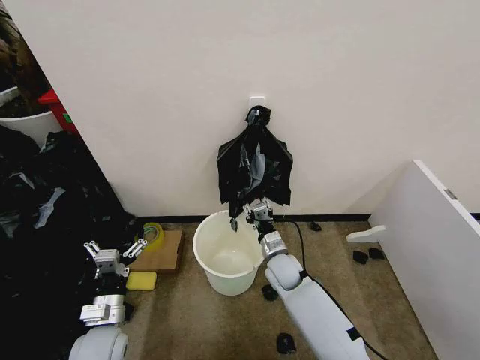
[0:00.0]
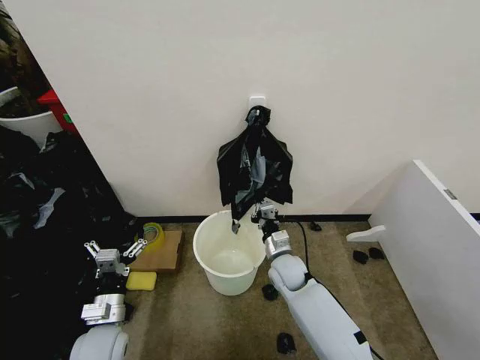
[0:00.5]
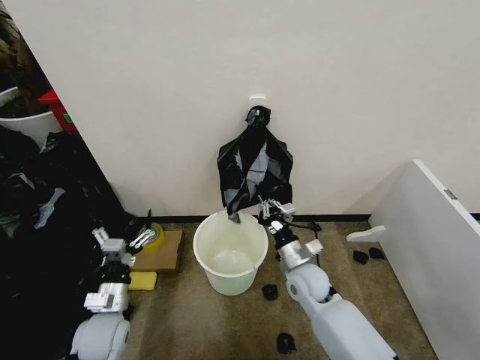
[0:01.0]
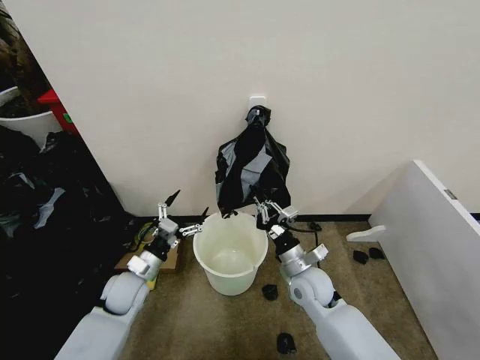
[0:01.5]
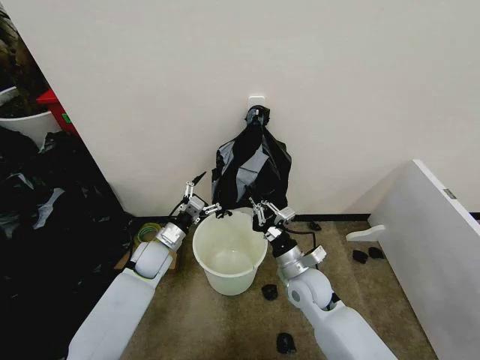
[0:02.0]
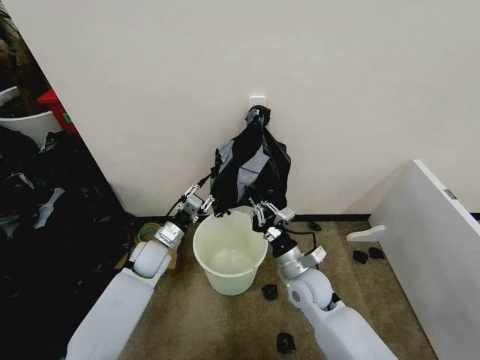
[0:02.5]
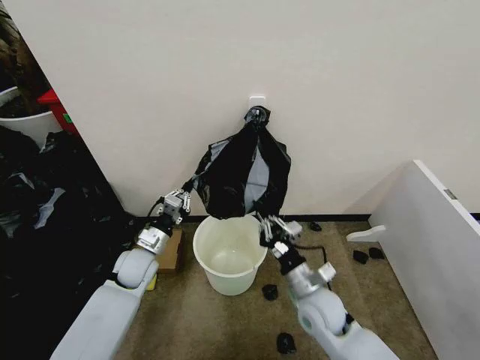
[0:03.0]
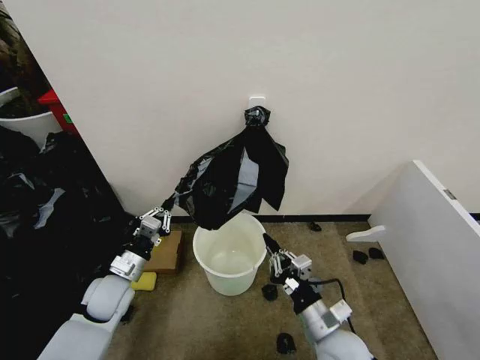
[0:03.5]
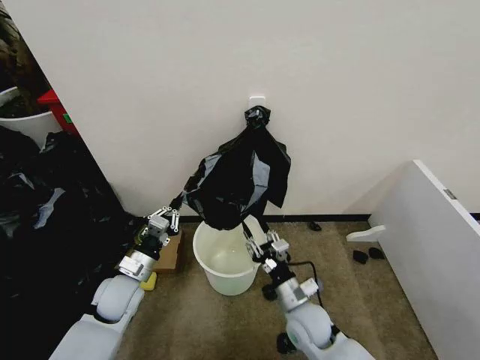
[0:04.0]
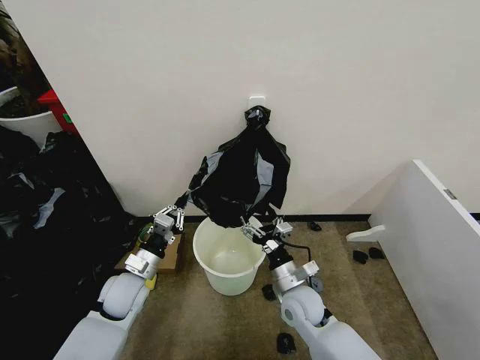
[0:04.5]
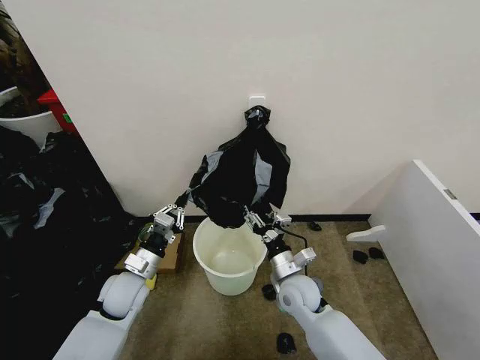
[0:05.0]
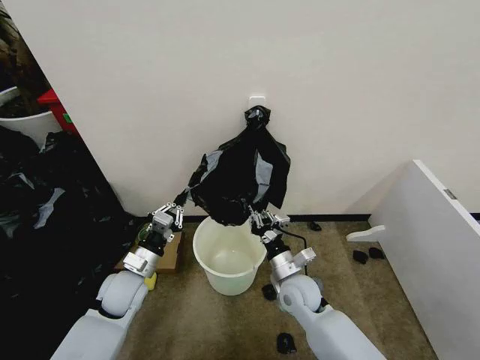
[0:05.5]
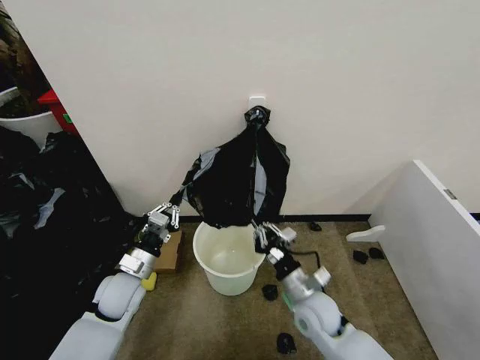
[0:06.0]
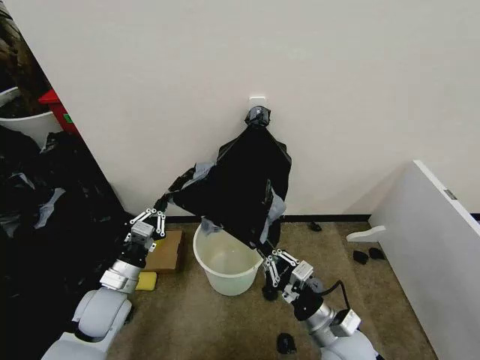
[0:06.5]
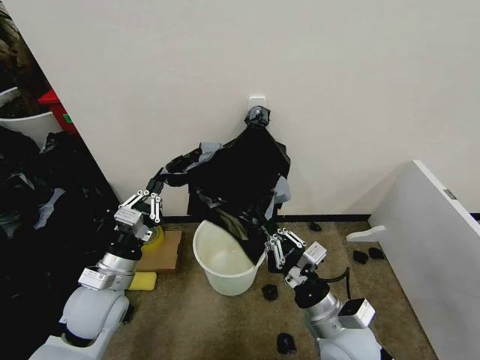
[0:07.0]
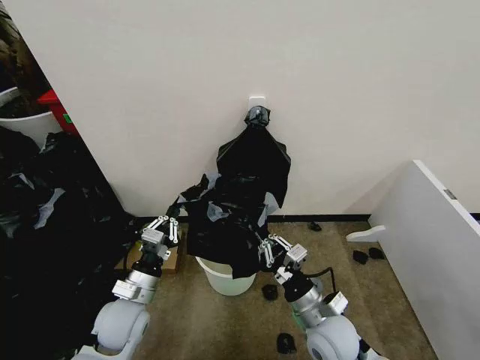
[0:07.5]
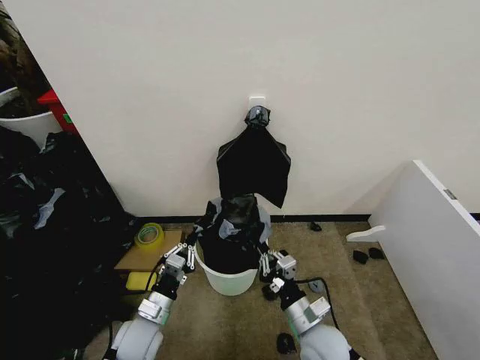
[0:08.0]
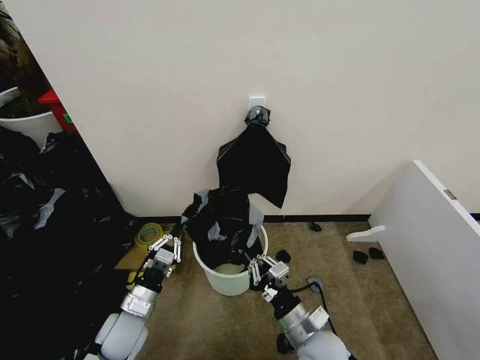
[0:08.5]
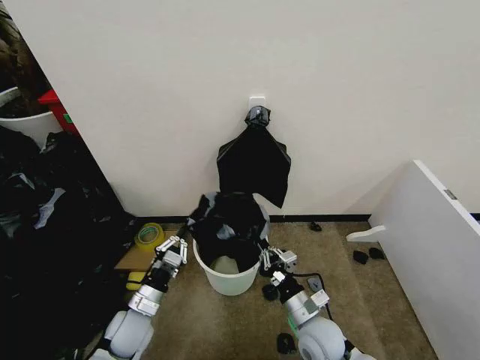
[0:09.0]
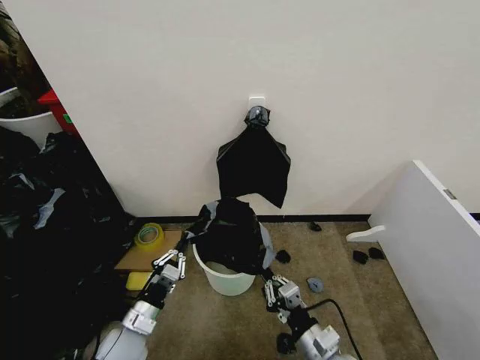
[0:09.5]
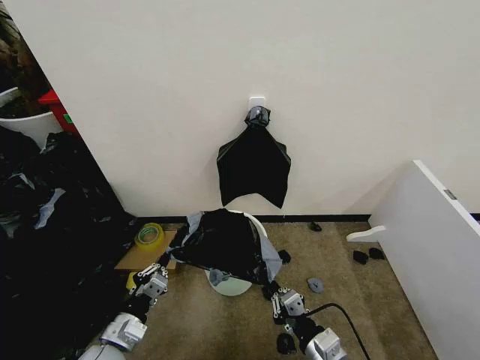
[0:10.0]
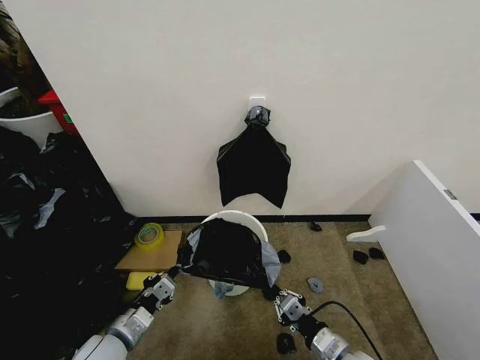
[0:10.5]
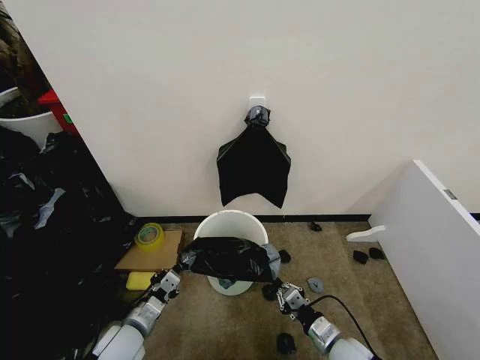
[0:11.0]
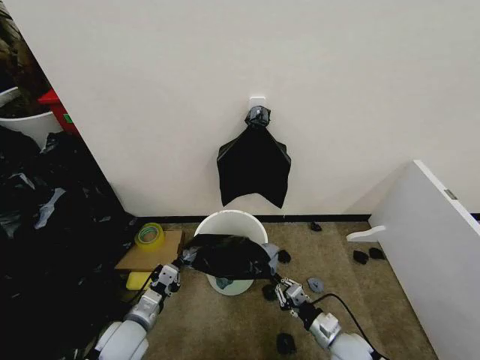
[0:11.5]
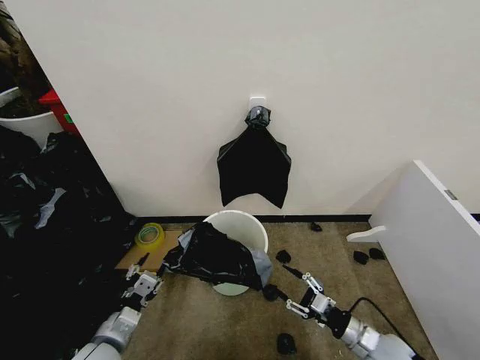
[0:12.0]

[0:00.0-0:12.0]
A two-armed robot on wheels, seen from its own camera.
Task of the whole recording: Place the garbage bag over the trash bin.
0:00.0 to 0:02.0: The left gripper is displaced forward by some 20 cm. Meanwhile the right gripper is displaced backward and upward by about 10 cm.
0:02.0 to 0:04.0: The right gripper travels backward and downward by roughly 10 cm, and opens. The left gripper travels backward by approximately 10 cm, and closes up.
0:04.0 to 0:06.0: The right gripper closes its fingers.
0:06.0 to 0:08.0: The left gripper goes about 10 cm backward and downward, while the right gripper goes about 5 cm backward, and moves approximately 10 cm upward and comes back.
0:08.0 to 0:10.0: The grippers both shift backward by about 5 cm.
0:10.0 to 0:12.0: The right gripper moves to the right, downward and forward, roughly 15 cm, and opens its fingers; the left gripper opens.

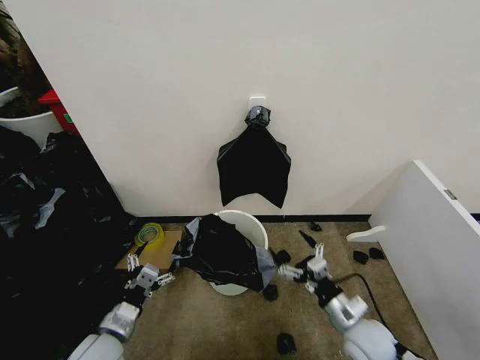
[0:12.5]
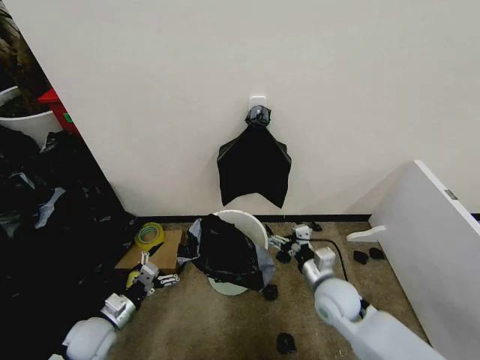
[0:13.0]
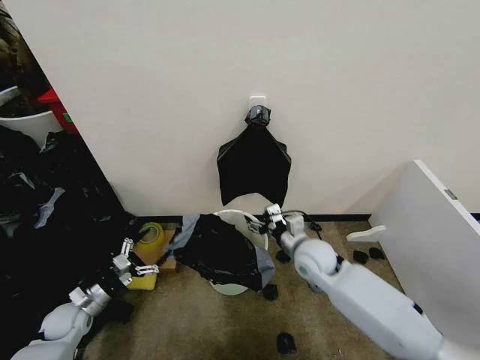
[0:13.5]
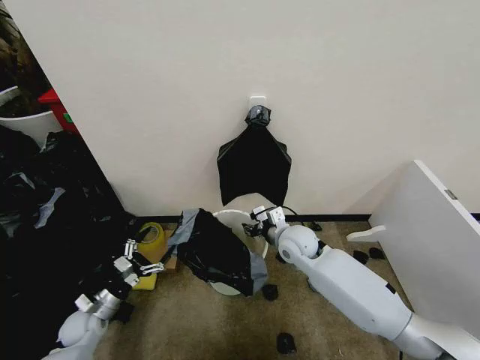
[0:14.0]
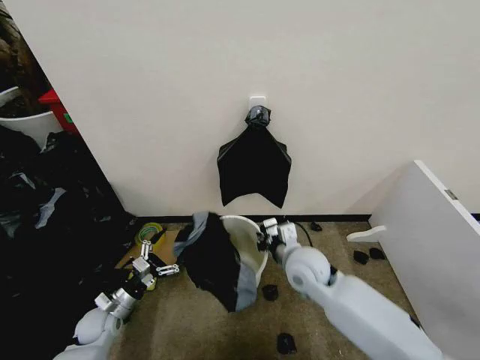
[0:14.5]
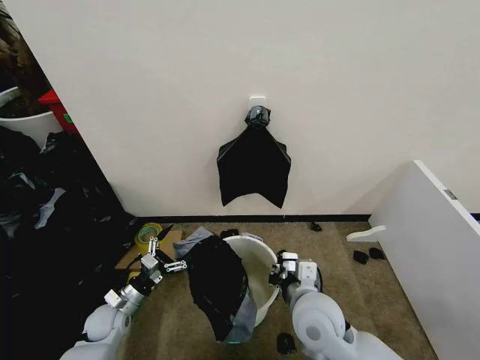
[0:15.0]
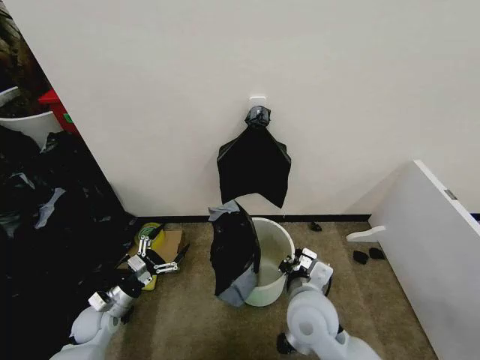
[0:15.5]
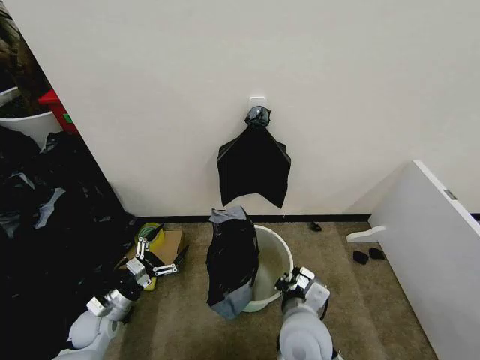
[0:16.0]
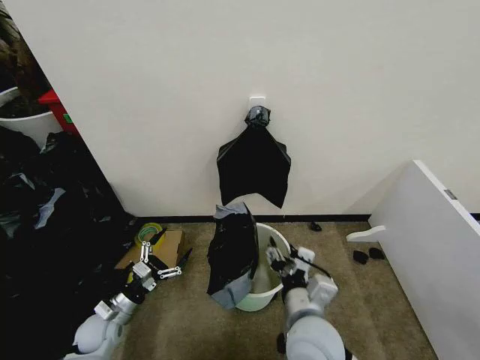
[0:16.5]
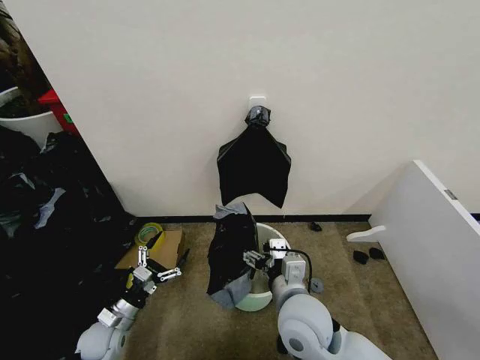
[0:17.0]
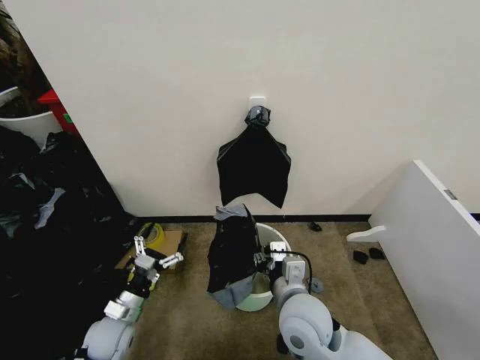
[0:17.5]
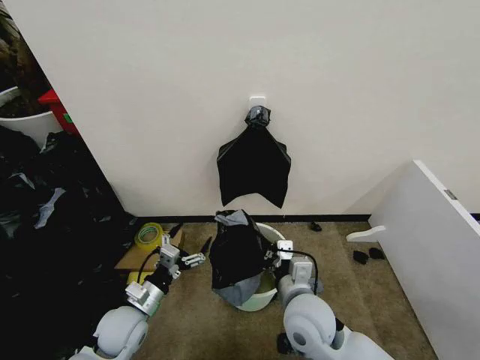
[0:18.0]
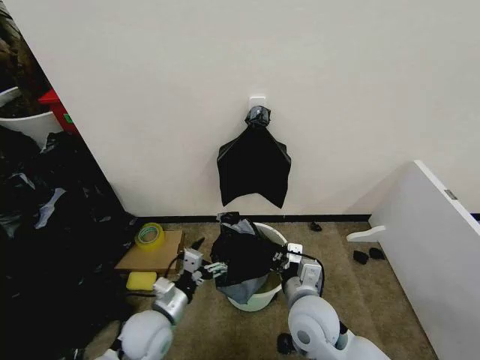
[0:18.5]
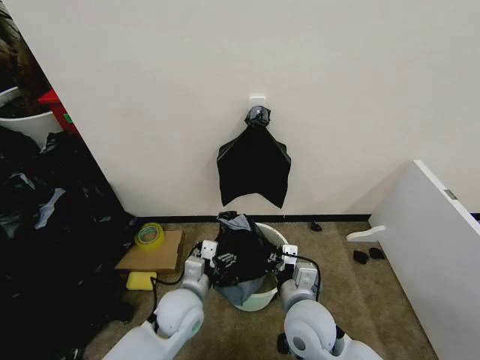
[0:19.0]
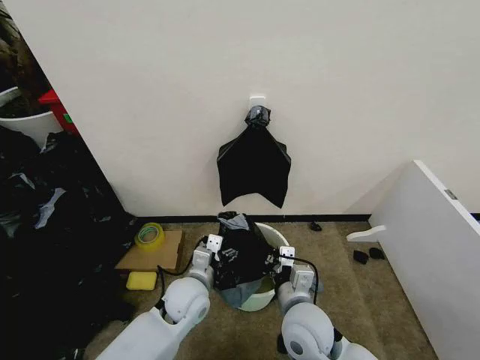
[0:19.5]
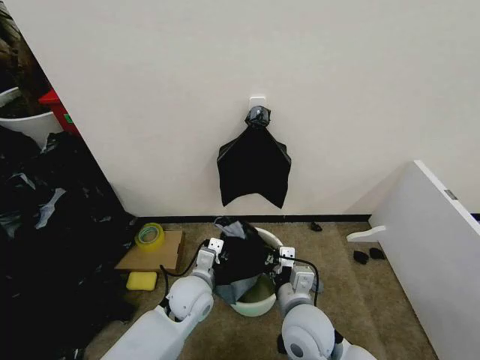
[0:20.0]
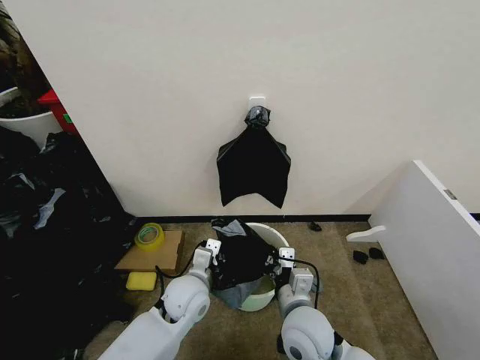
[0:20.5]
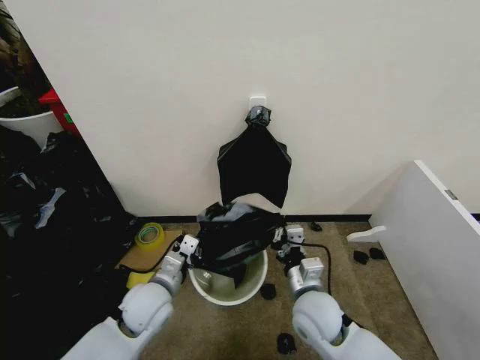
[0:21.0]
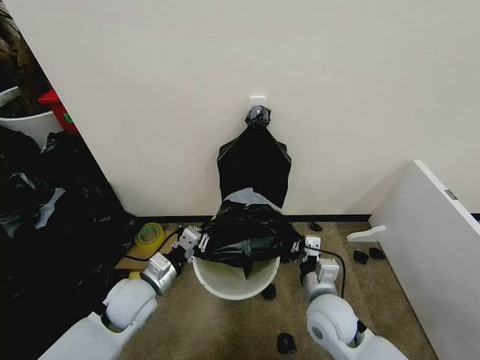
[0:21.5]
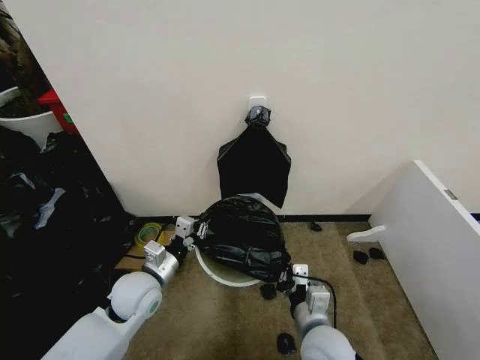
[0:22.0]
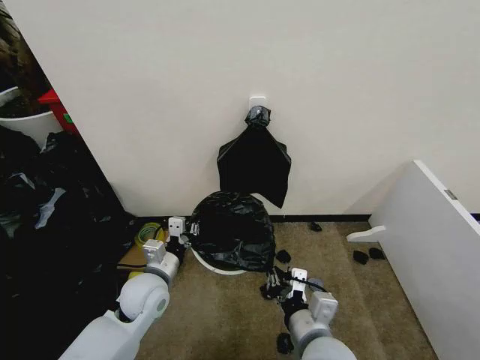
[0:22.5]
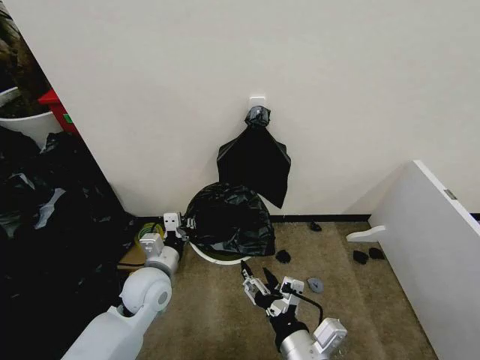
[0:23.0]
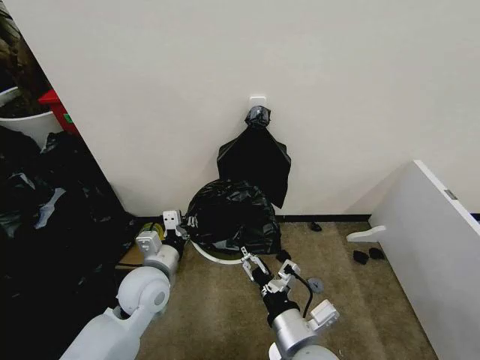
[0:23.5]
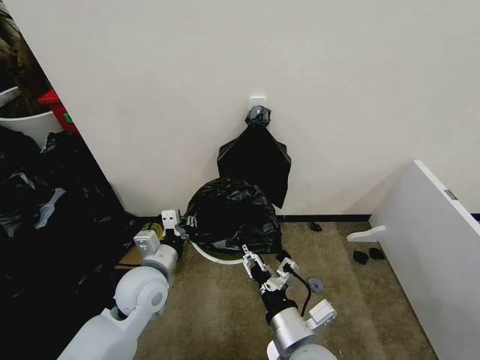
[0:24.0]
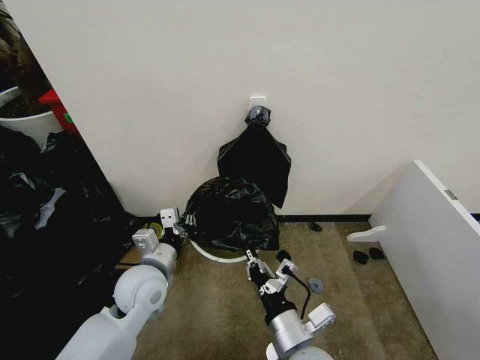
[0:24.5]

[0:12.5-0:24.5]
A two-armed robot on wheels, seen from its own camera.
Task of the whole recording: Place the garbage bag over the trash bin.
0:12.5 to 0:14.5: The left gripper heads downward, forward and to the left, covering about 15 cm. Meanwhile the right gripper goes about 20 cm to the left, forward and upward, and closes its fingers.
0:14.5 to 0:16.5: The right gripper heads backward, covering about 15 cm, and opens.
0:16.5 to 0:18.5: The left gripper travels to the right and upward by roughly 15 cm. Meanwhile the right gripper changes place by about 5 cm, and closes up.
0:18.5 to 0:20.5: The left gripper is displaced to the right and forward by roughly 10 cm, and closes up.
0:20.5 to 0:22.5: The left gripper moves to the left, approximately 10 cm; the right gripper travels backward by about 5 cm.
0:22.5 to 0:24.5: The right gripper opens and closes again.

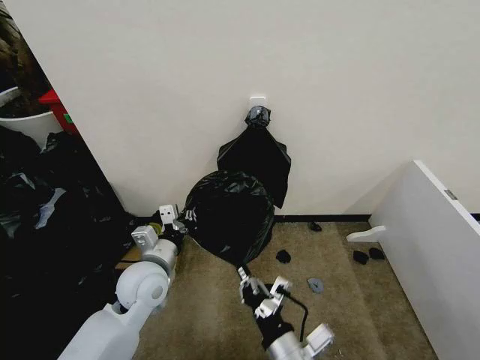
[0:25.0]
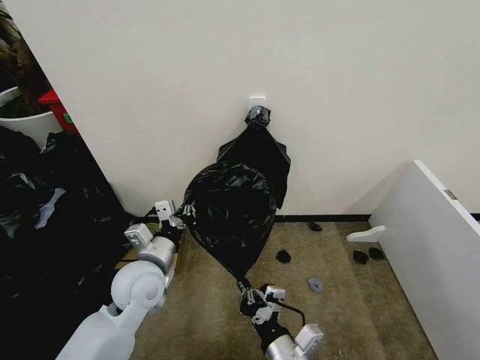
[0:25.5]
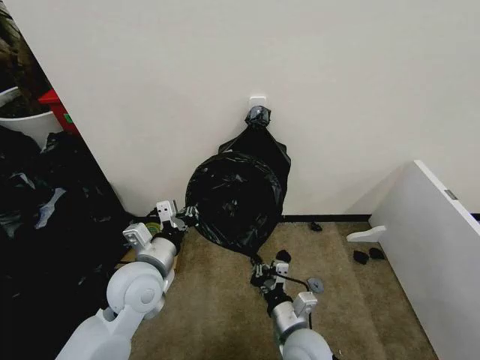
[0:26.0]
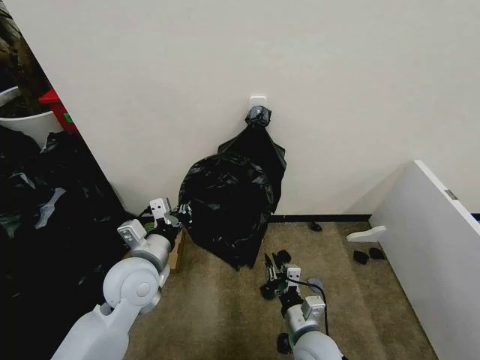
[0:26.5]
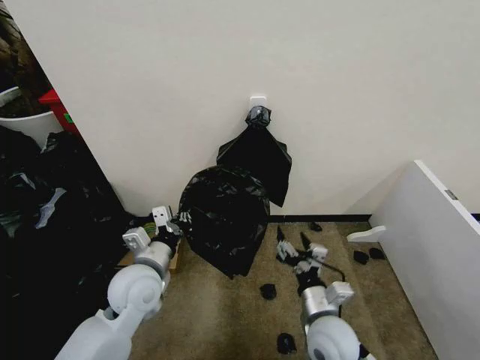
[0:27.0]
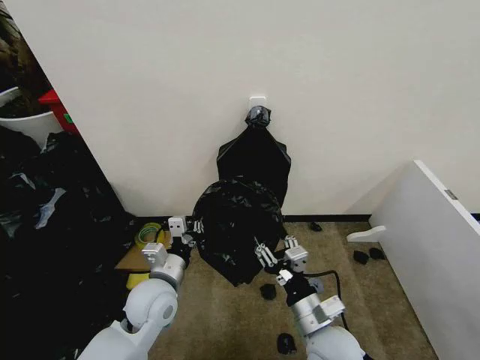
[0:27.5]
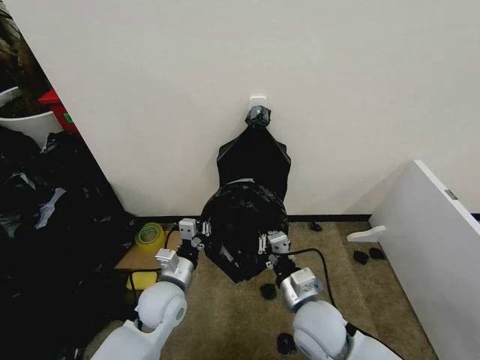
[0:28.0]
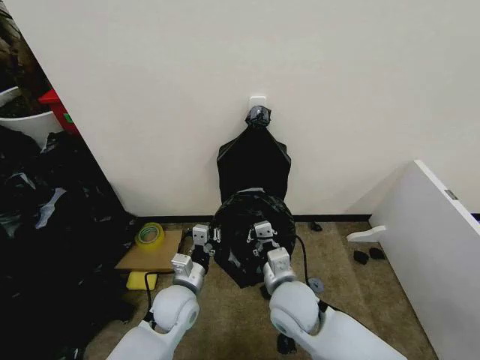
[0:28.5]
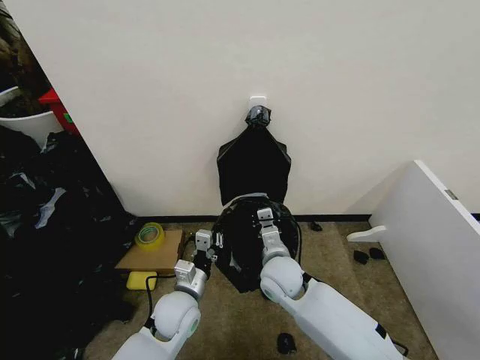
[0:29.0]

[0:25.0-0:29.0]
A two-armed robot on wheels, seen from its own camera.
Task of the whole recording: Place the garbage bag over the trash bin.
0:25.0 to 0:27.0: The right gripper travels forward and to the right by some 10 cm, and opens up.
0:27.0 to 0:29.0: The right gripper travels forward and to the left by approximately 15 cm, and closes up. The left gripper goes approximately 10 cm downward and to the right.
